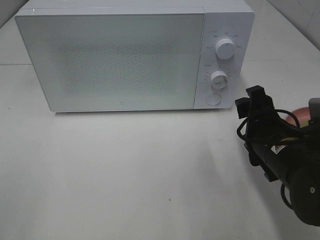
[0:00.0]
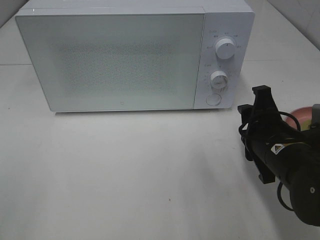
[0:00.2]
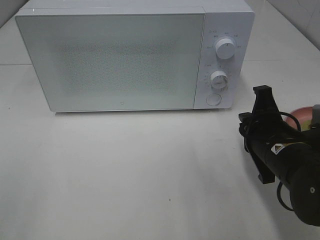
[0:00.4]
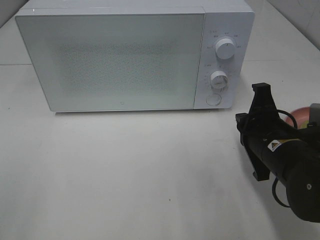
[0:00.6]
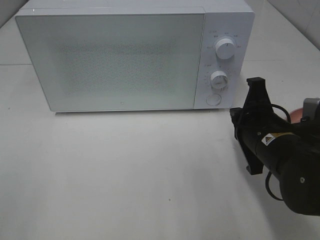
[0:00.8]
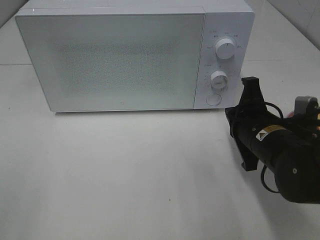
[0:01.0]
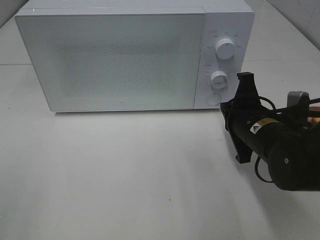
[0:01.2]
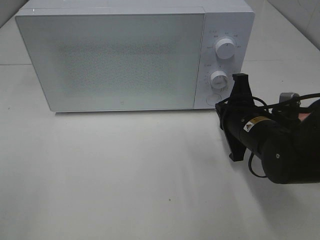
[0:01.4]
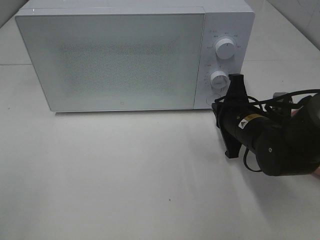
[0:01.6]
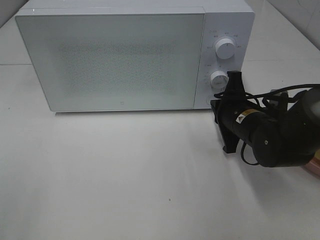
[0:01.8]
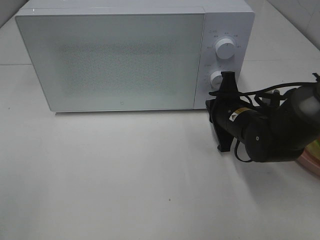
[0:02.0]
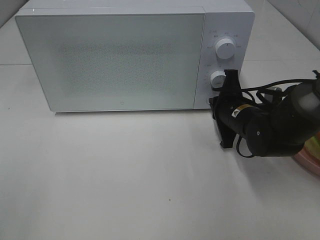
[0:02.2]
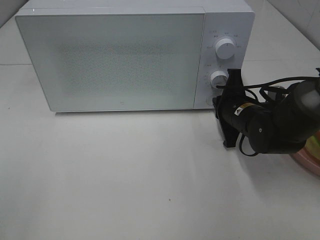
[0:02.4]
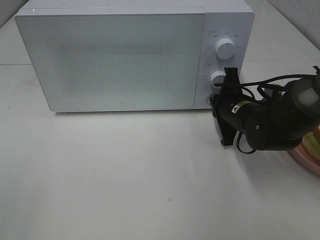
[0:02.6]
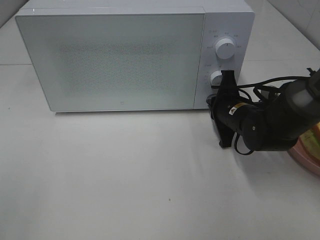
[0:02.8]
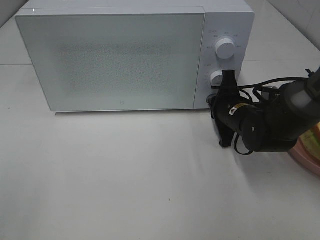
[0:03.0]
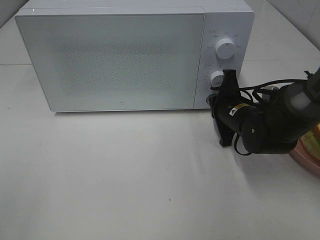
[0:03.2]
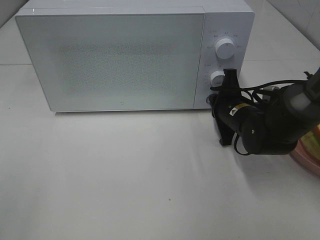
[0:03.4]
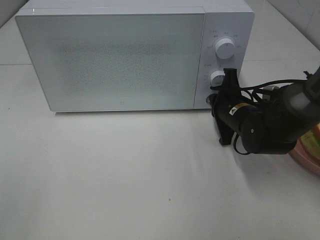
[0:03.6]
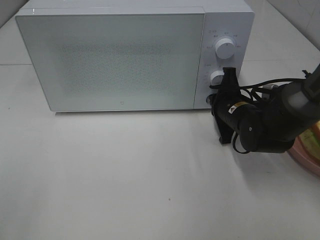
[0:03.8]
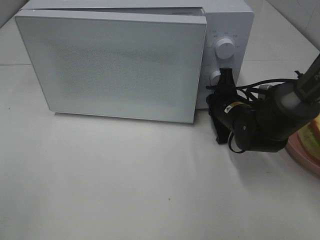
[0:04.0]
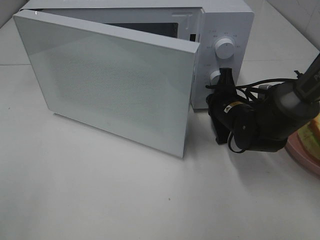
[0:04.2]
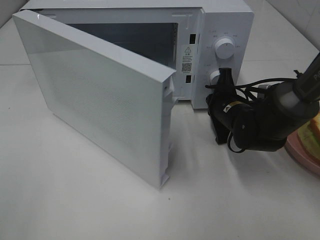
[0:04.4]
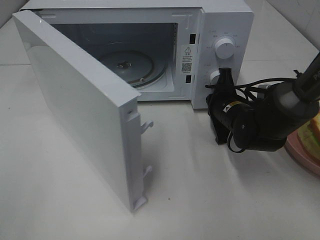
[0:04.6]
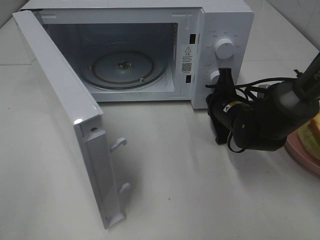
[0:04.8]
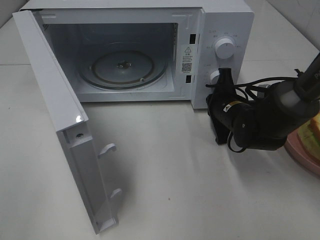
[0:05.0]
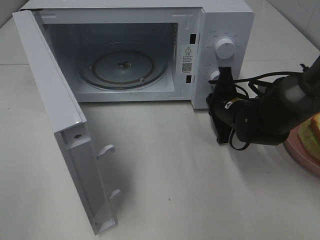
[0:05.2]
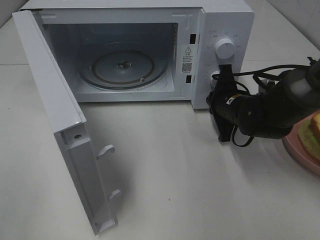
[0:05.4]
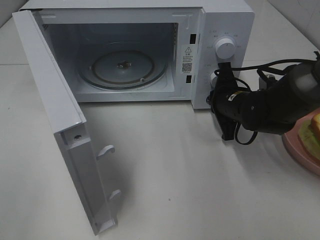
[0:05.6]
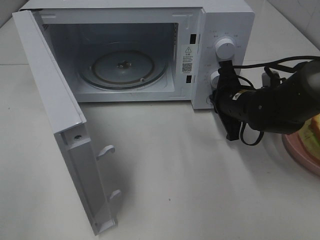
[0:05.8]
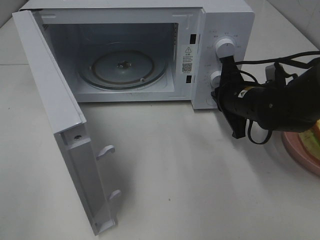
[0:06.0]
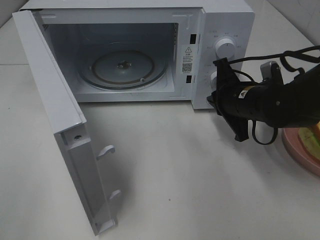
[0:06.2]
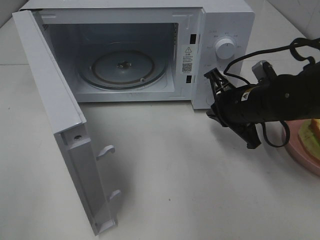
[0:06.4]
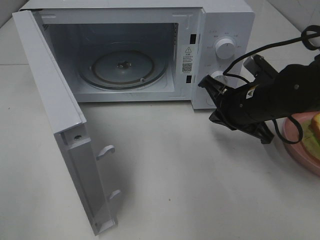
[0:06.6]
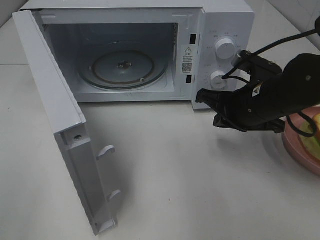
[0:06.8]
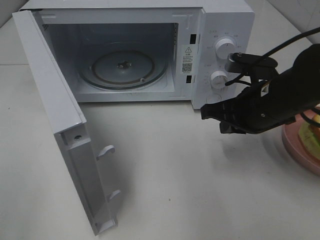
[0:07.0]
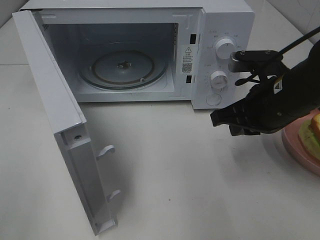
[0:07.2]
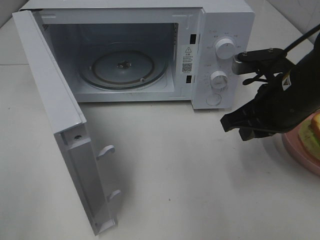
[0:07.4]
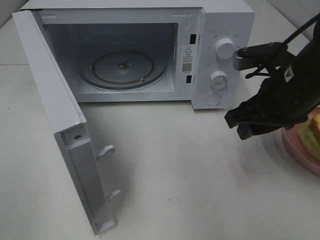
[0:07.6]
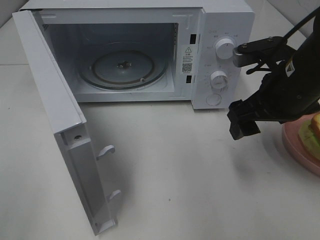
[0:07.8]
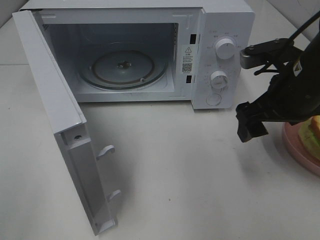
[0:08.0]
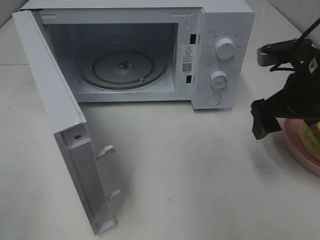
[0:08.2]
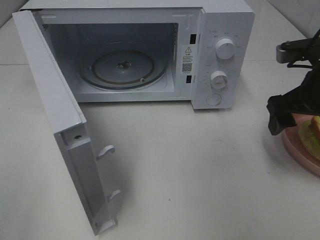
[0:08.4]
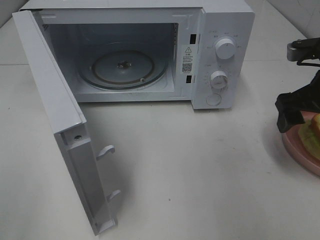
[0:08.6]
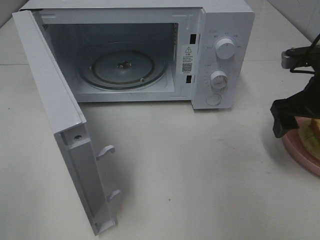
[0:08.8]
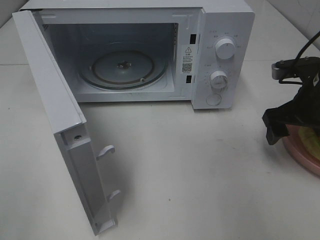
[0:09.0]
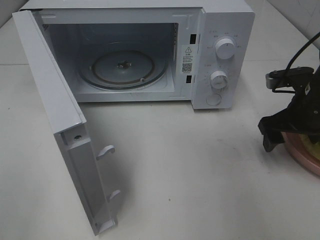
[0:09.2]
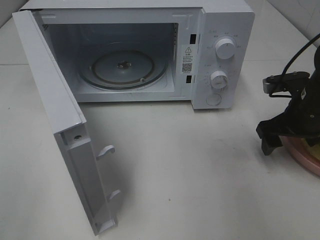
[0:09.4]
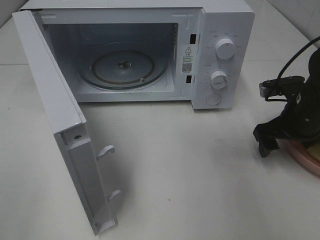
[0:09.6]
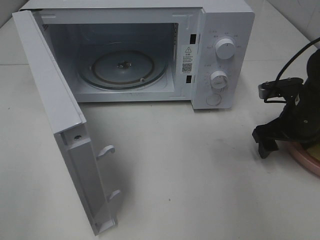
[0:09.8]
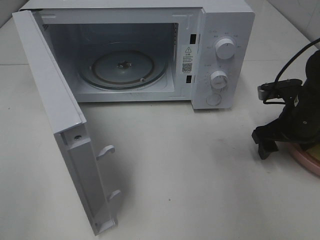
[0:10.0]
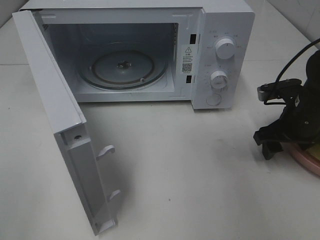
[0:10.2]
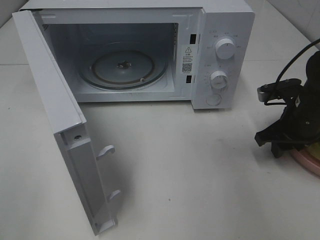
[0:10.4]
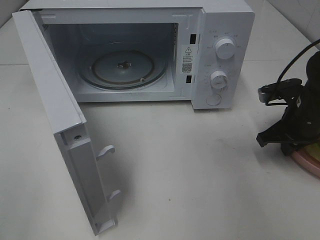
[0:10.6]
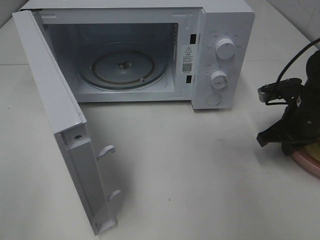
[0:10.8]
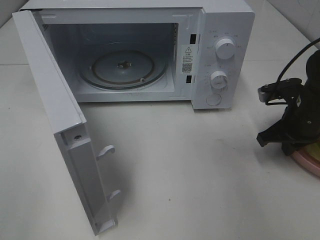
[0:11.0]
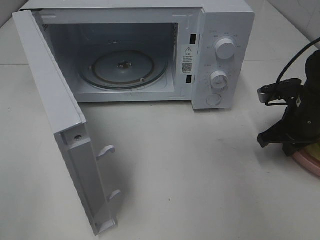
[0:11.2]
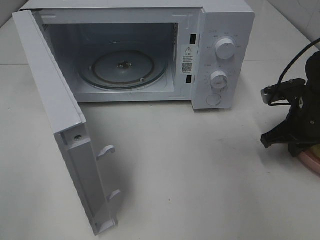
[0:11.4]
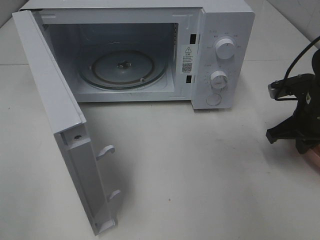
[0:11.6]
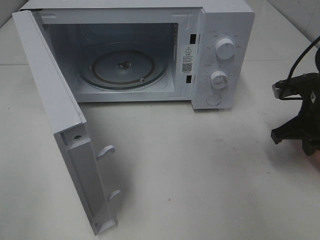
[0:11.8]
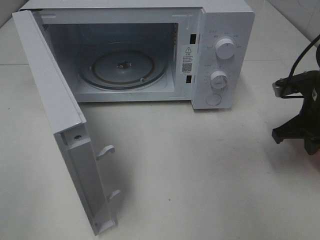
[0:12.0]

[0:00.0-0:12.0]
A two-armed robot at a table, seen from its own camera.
Task of the whole recording: Heat Sandwich.
Step, 0:00.0 to 0:06.0: Right hand: press the switch.
Step, 0:06.2 to 0:11.6: Right hand: grab the plate with the sandwich.
0:00.0 to 0:01.6: The right gripper heads forward, covering roughly 10 cm, and closes up.
0:01.6 to 0:03.0: The right gripper is displaced forward by roughly 5 cm.
0:06.0 to 0:07.6: The right gripper is displaced upward and backward by approximately 10 cm, and opens its fingers.
0:07.6 to 0:09.0: The right gripper heads to the right, covering about 10 cm, and opens up.
0:09.0 to 0:10.4: The right gripper shifts by some 5 cm, and closes.
0:10.4 to 0:12.0: The right gripper closes.

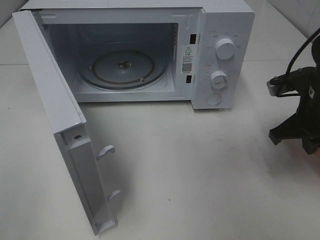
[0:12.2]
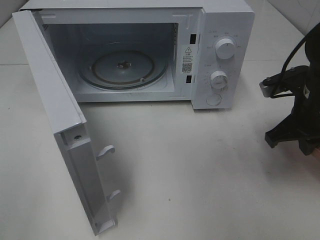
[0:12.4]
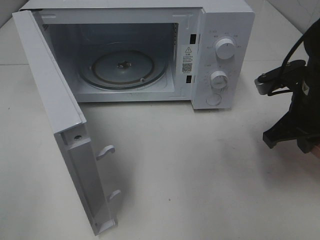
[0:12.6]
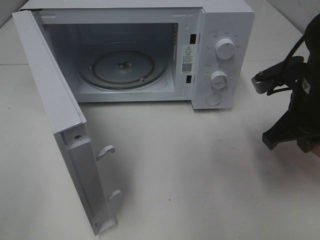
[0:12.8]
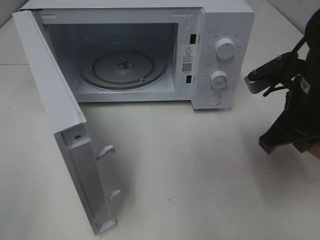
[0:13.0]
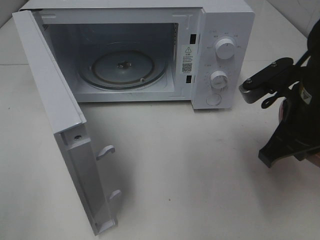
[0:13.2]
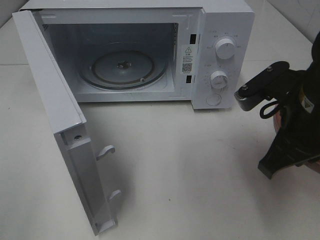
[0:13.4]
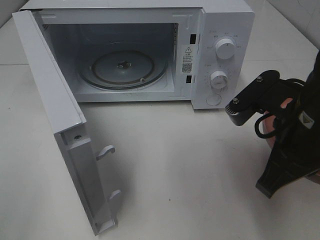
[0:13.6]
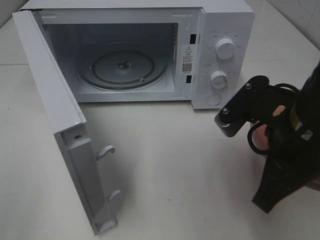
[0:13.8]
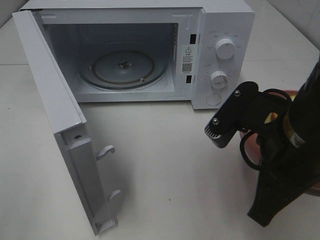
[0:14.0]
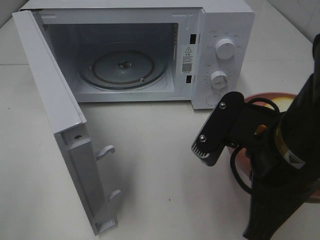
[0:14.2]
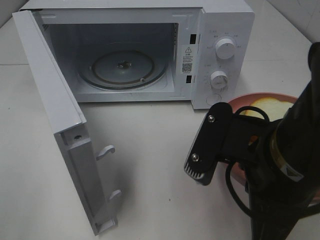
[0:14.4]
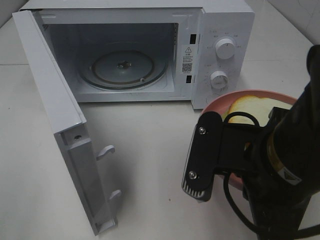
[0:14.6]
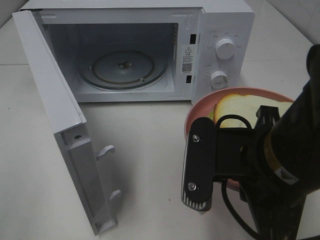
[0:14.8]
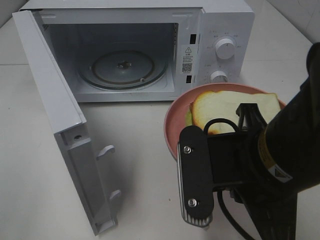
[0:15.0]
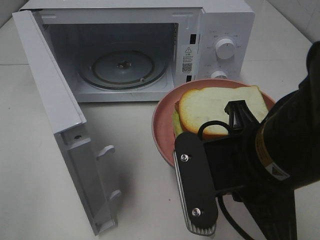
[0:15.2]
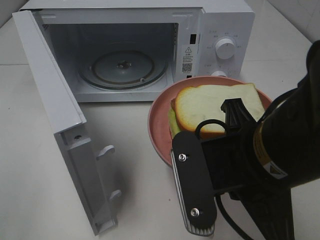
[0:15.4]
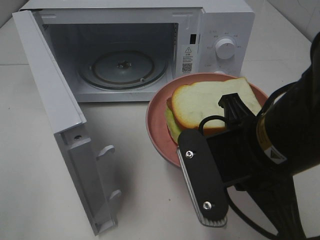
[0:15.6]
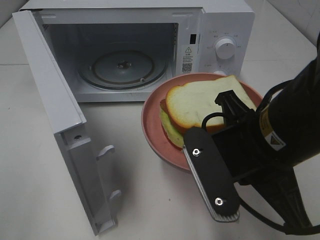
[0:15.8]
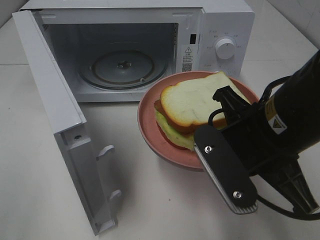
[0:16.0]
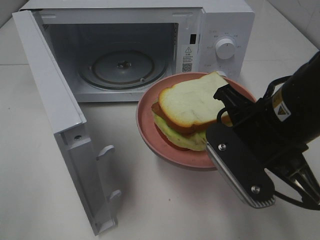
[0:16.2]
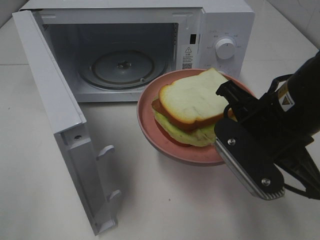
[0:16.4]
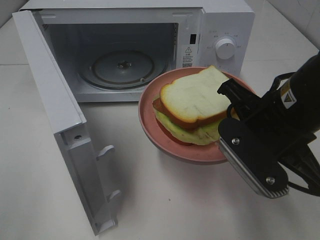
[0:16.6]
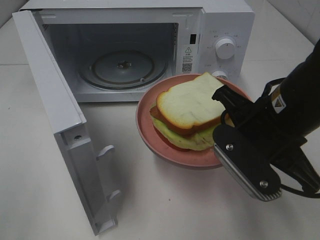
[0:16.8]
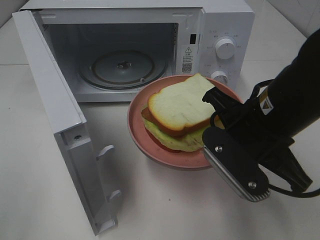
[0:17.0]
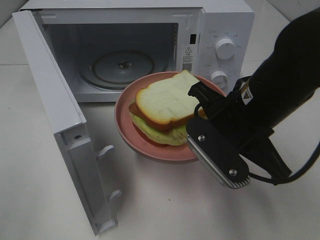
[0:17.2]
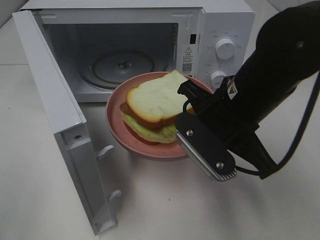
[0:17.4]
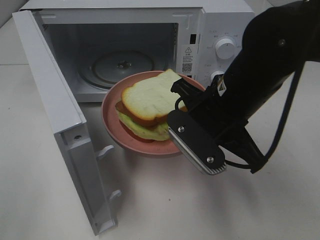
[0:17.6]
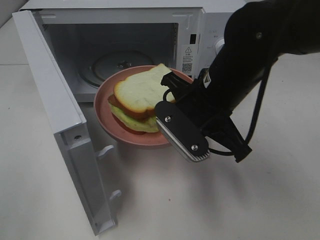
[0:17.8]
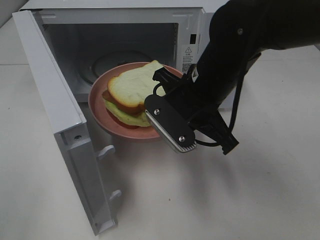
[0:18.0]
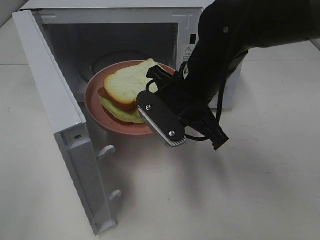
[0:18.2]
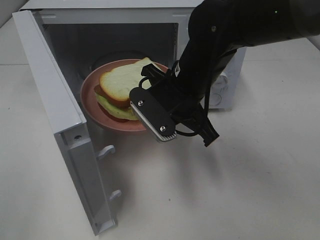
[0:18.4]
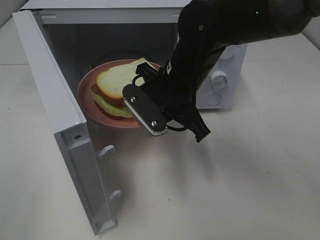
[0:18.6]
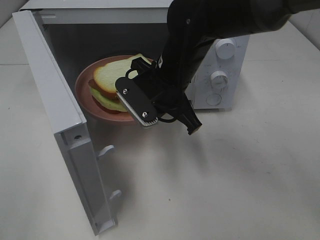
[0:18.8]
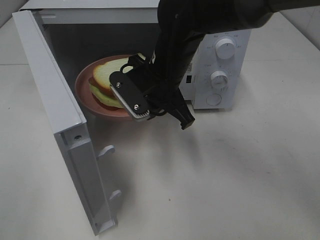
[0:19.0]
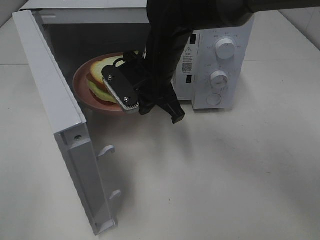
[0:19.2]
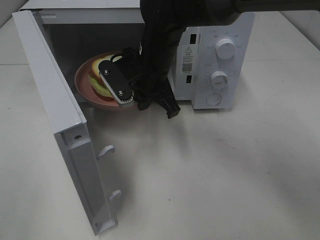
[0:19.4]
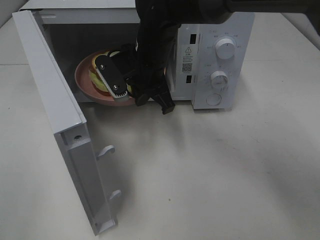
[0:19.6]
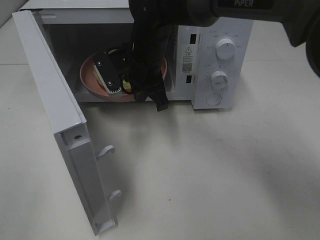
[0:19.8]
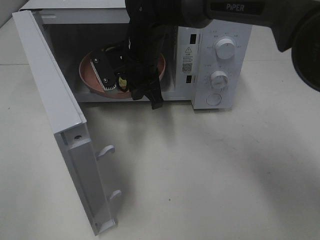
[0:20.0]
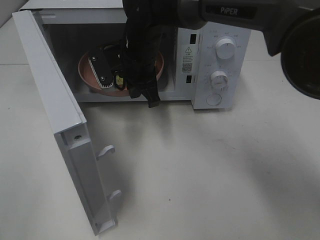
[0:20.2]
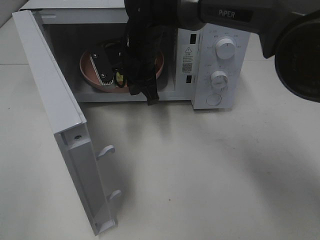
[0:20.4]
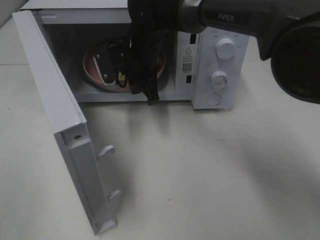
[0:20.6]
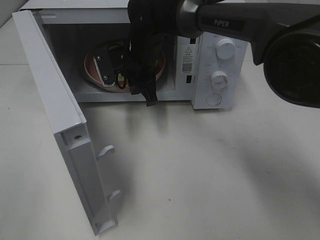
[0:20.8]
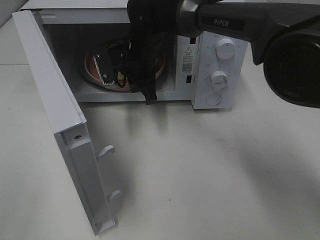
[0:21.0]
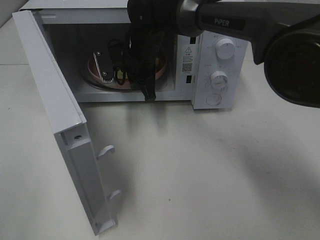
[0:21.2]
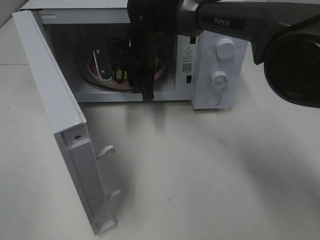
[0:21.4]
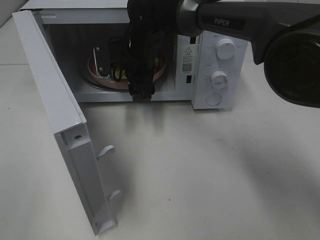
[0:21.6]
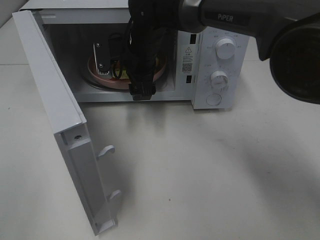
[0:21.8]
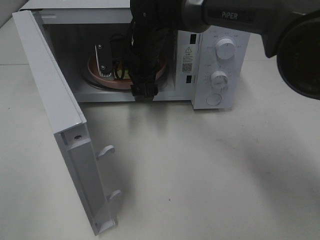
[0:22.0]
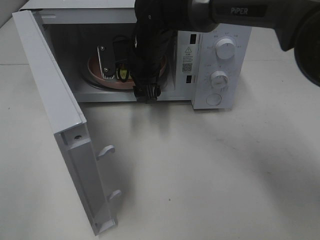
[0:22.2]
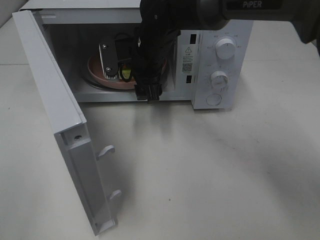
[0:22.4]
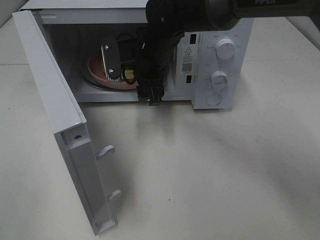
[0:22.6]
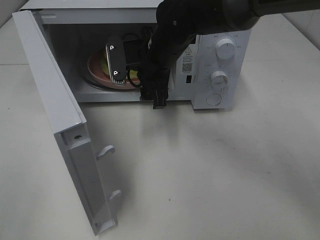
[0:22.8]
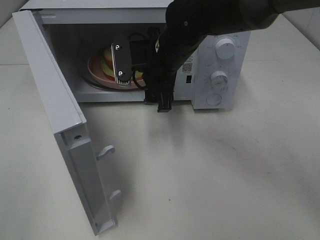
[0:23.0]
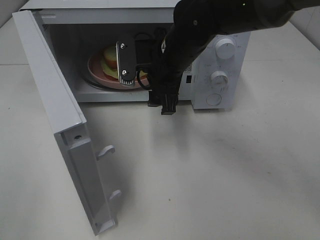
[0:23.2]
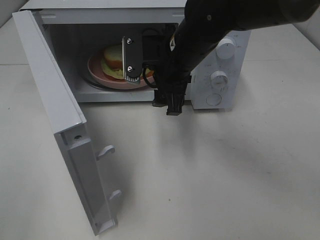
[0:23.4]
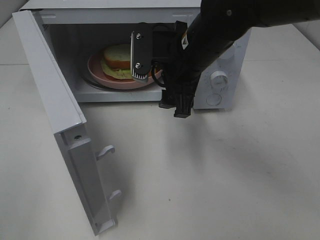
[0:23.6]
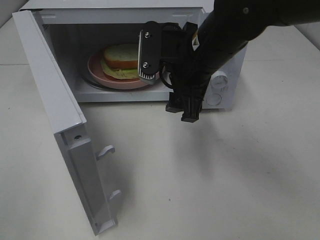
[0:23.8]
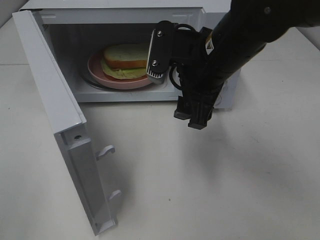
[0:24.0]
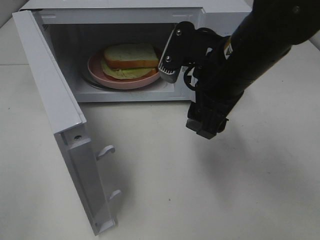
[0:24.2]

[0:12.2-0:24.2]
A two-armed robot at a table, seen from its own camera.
Task of the whole recording: Heat Sandwich.
Step, 0:12.2 to 0:22.4: Right hand: place the plate in the microwave.
0:12.2 to 0:13.8: The right gripper is displaced backward, to the left and upward by roughly 15 cm.
0:13.8 to 0:15.2: The right gripper travels to the left by roughly 5 cm.
0:15.2 to 0:16.6: The right gripper travels forward by approximately 5 cm.
0:16.6 to 0:18.2: The right gripper travels to the left and forward by approximately 15 cm.
0:18.2 to 0:19.8: The right gripper is displaced forward and to the left by some 15 cm.
0:19.8 to 0:21.2: There are only small adjustments of the grippers.
0:21.2 to 0:22.6: The right gripper opens its fingers.
0:22.6 to 0:24.2: The right gripper moves backward, to the right and upward, roughly 20 cm.
